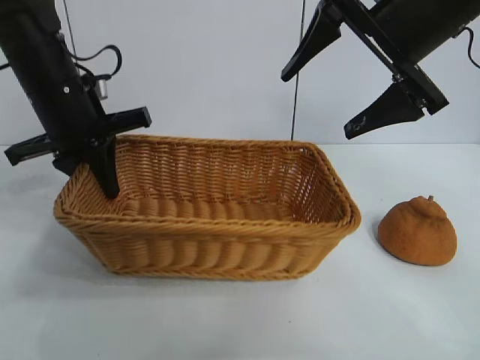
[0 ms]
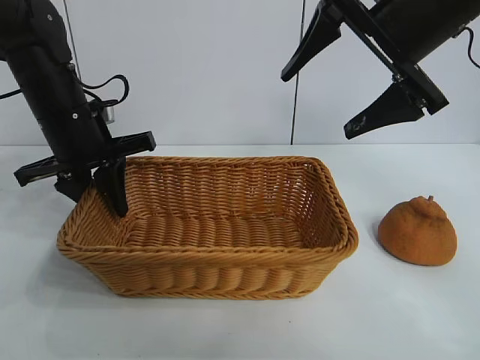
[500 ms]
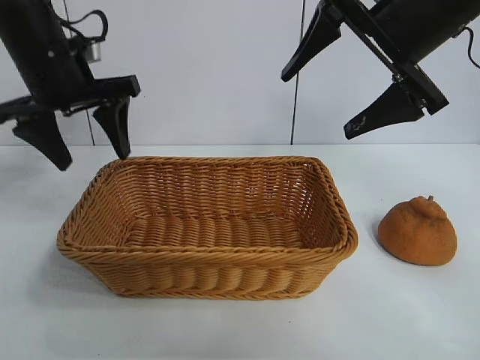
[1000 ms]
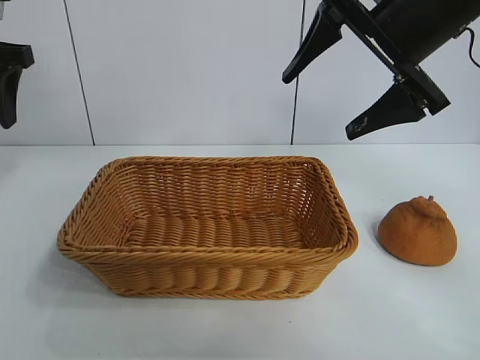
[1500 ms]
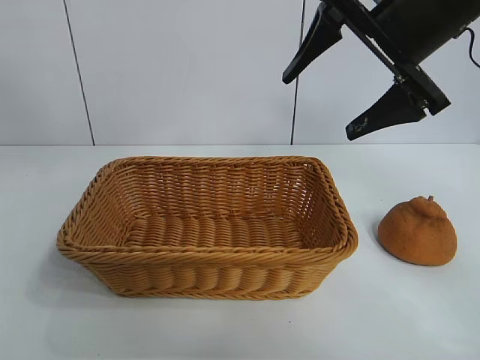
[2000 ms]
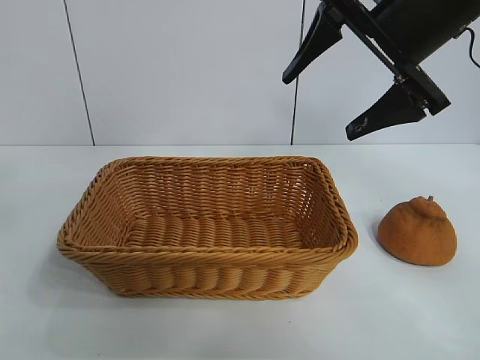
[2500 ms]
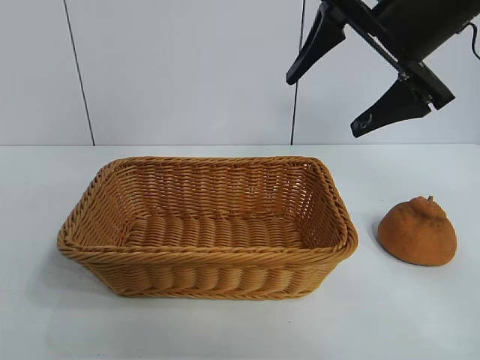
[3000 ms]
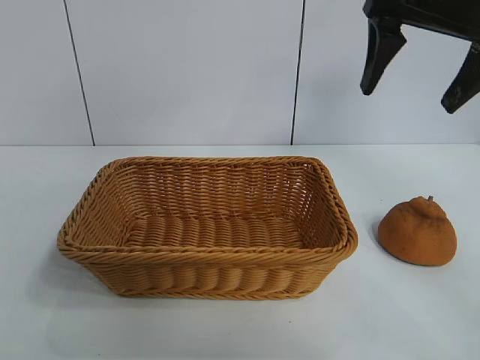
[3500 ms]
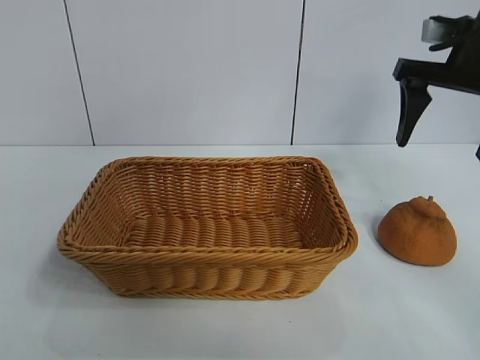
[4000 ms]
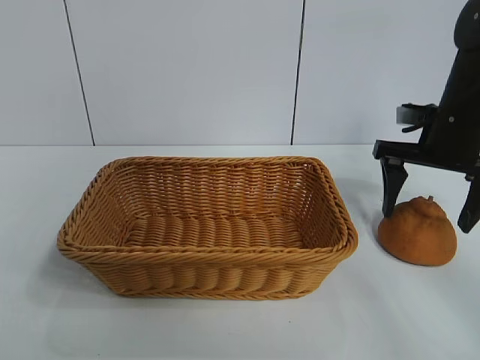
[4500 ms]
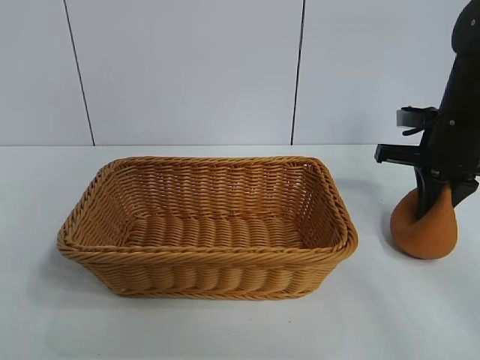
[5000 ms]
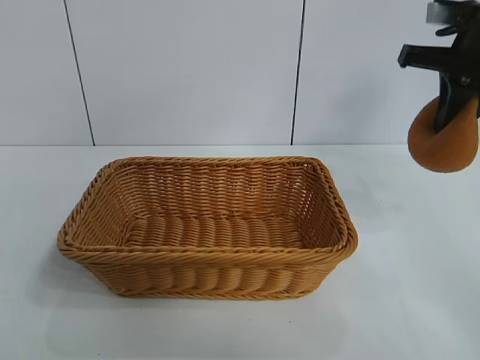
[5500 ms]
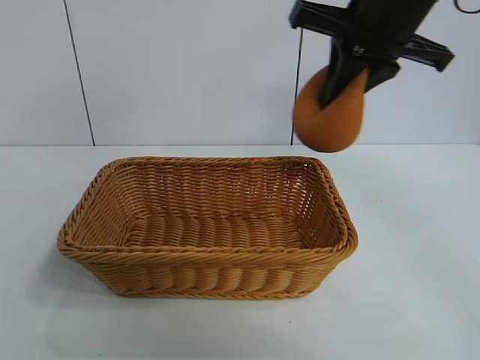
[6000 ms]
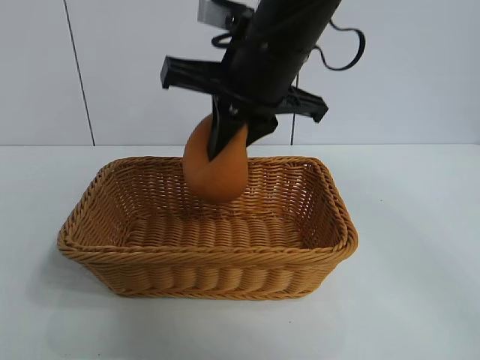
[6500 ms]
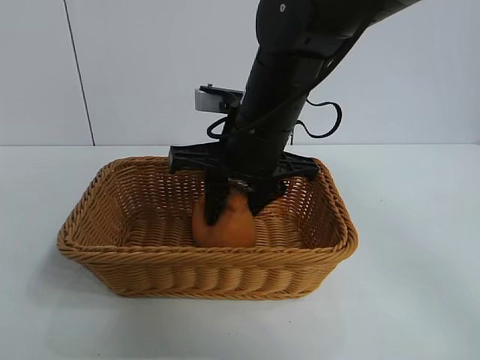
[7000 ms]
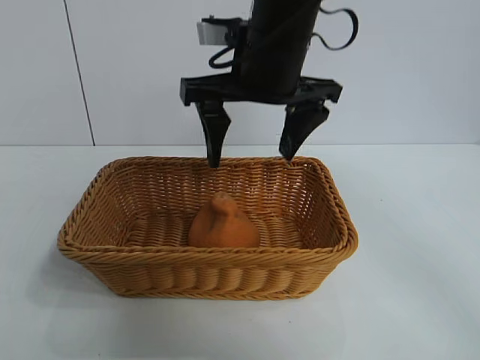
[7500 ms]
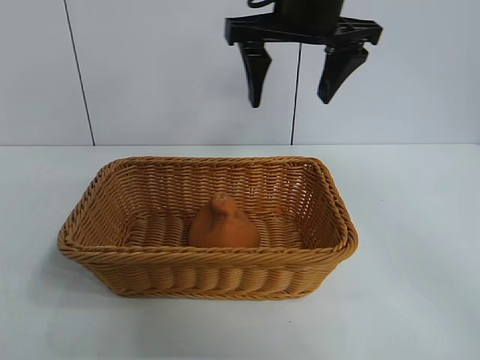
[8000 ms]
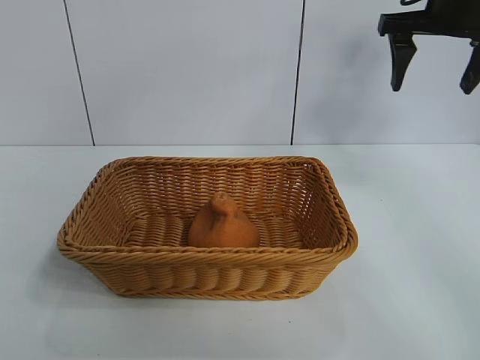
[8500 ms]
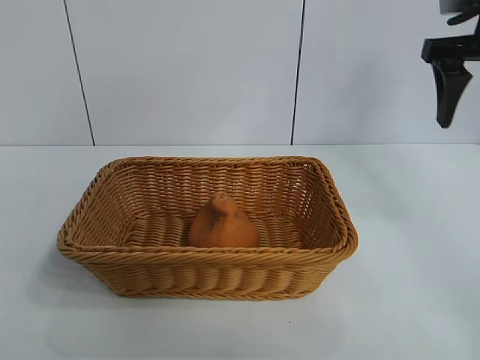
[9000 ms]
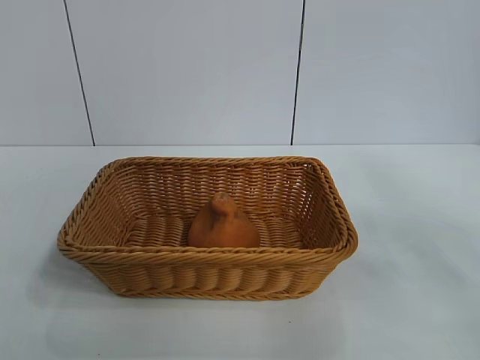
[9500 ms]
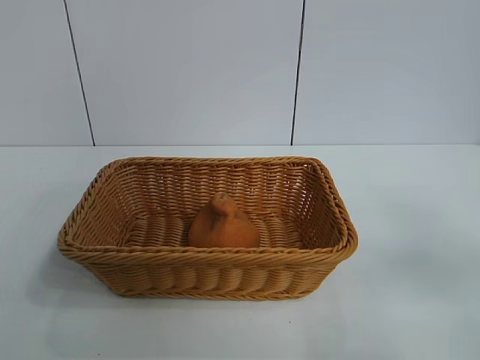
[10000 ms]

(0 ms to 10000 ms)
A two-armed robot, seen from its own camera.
Task of the whole recording: pick up the orange and put it into the basket.
Step, 1000 ms - 4500 ms: Grasp the orange with right gripper.
Step, 5500 ms - 7000 ms: Place the orange in the basket with right gripper.
